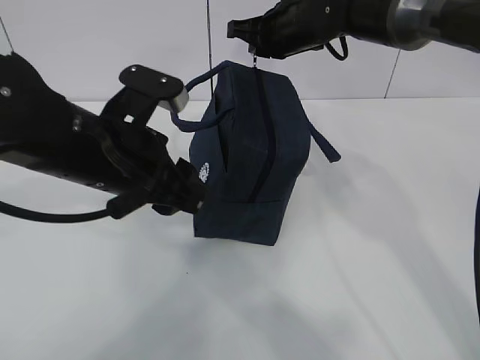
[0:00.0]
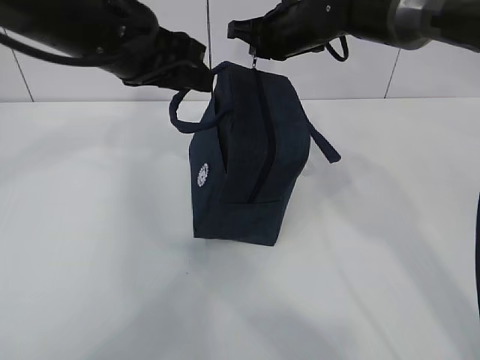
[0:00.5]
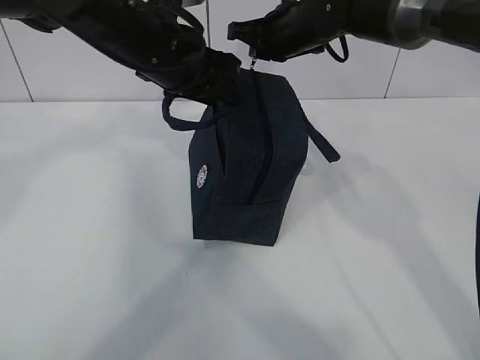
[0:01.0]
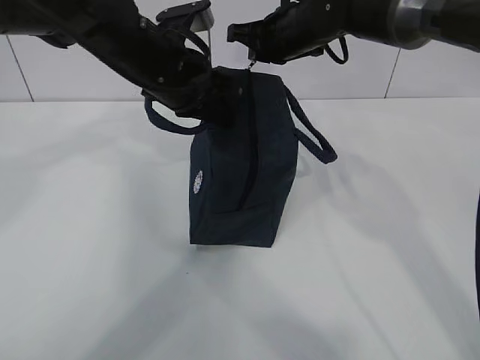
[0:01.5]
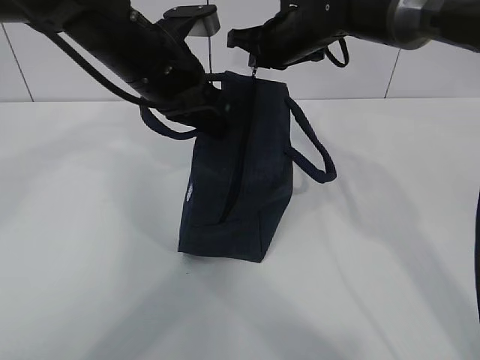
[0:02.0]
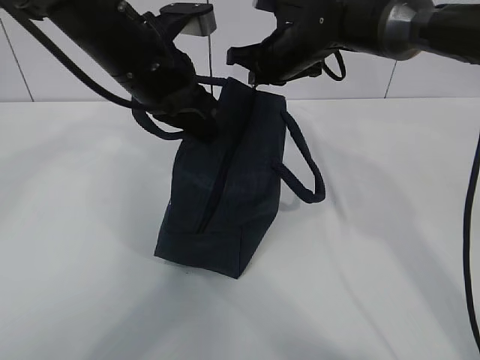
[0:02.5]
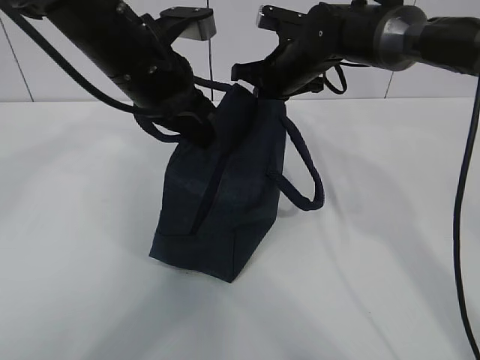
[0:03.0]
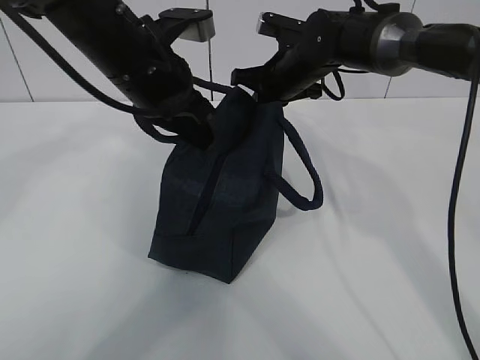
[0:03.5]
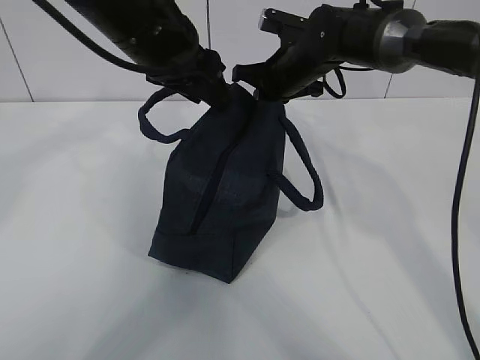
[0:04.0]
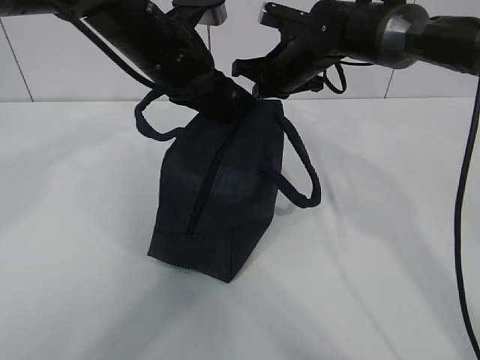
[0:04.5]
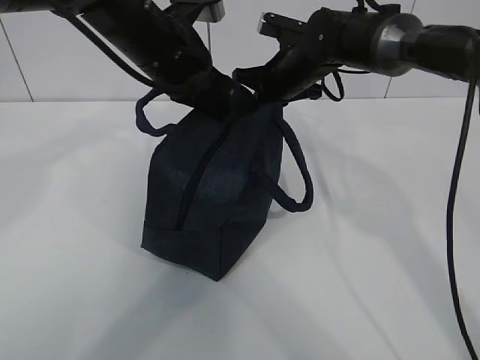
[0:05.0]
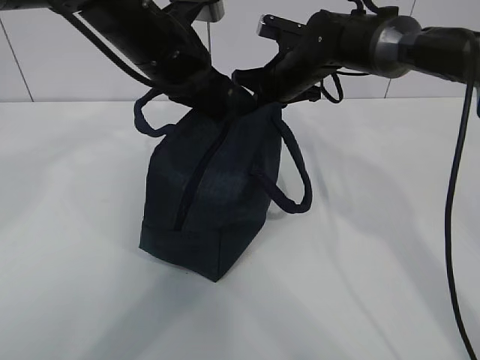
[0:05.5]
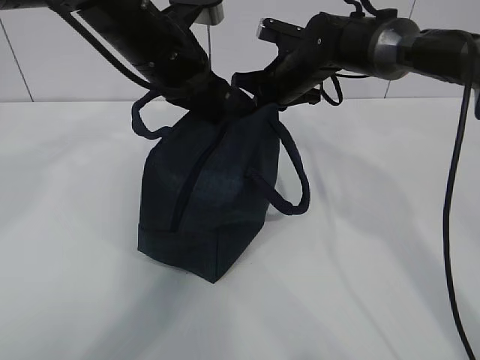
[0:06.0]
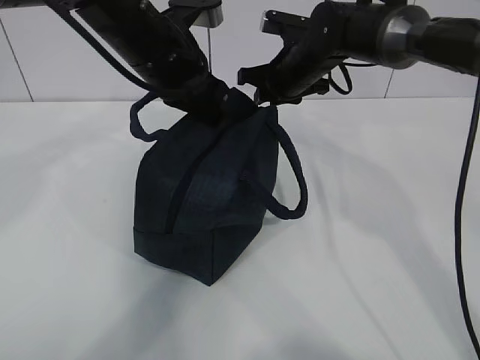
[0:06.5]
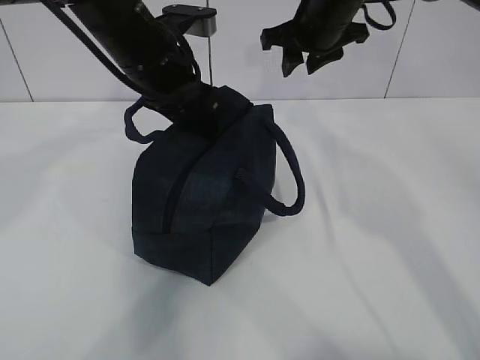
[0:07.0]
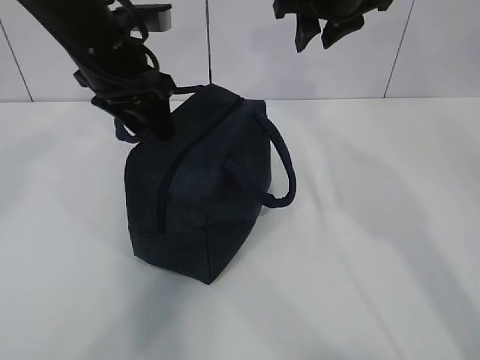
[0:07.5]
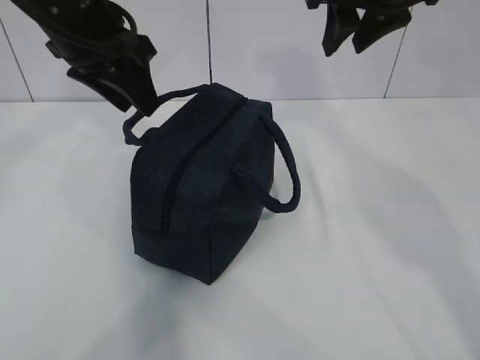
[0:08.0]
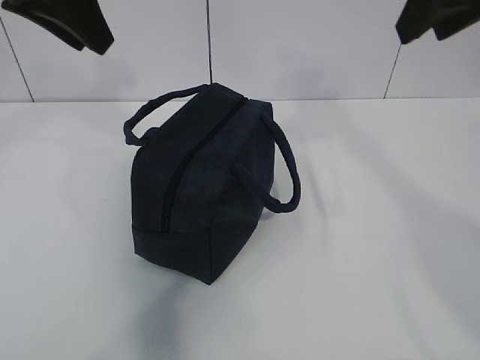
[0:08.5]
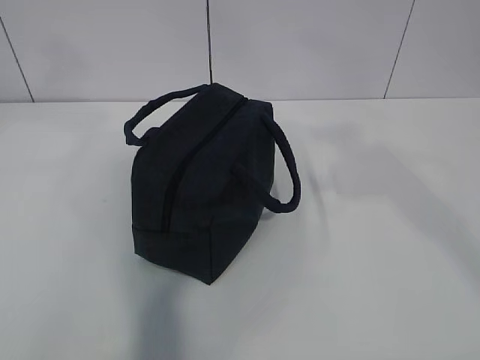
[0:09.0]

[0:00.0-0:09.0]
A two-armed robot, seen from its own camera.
0.0 to 2.0 s: The left gripper travels forward by approximately 10 cm, and closes.
2.0 to 4.5 s: The left gripper opens up.
4.5 to 7.0 s: The right gripper moves upward, some 10 cm, and opens up; the left gripper opens its fingers.
7.0 to 9.0 s: The left gripper travels upward, backward and to the left by approximately 30 cm; the right gripper moves backward, roughly 30 cm.

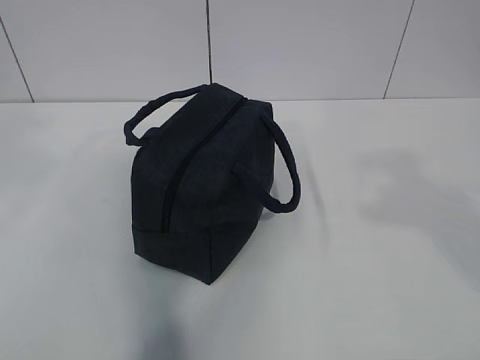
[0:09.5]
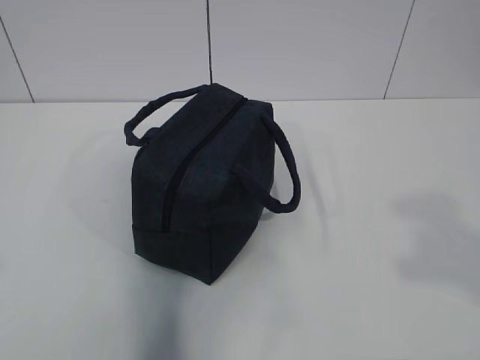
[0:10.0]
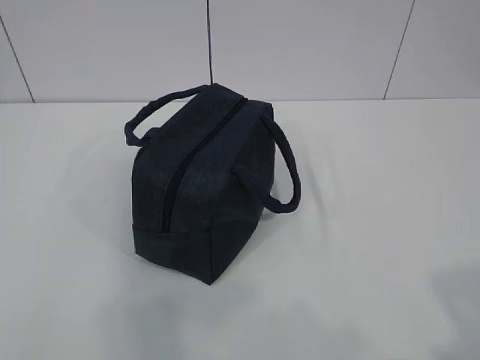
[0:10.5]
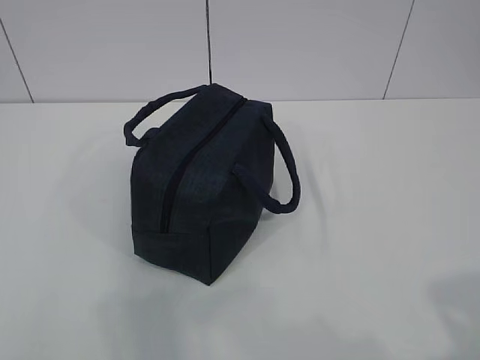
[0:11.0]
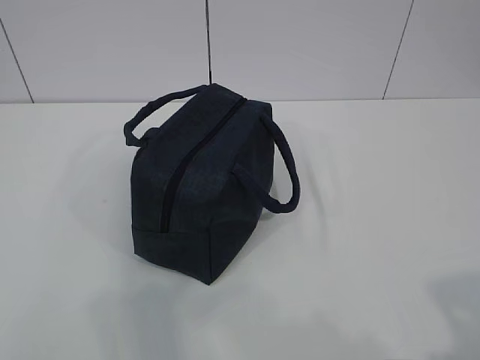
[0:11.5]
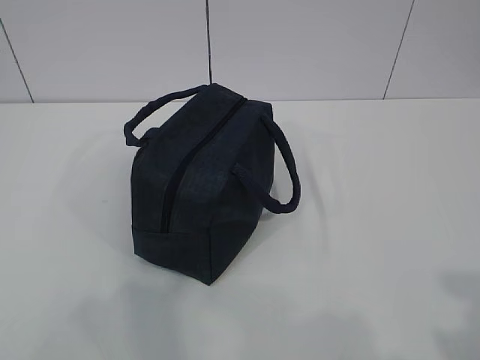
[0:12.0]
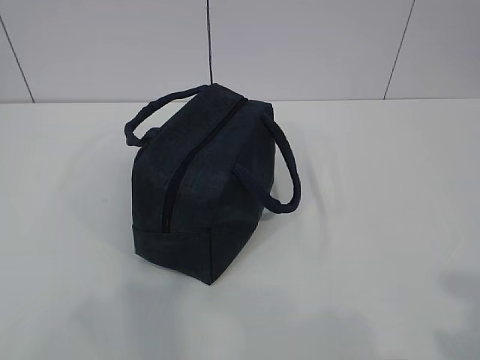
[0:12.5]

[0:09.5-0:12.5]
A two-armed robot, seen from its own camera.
9.5 to 11.0 s: Both grippers move downward and backward, about 20 cm.

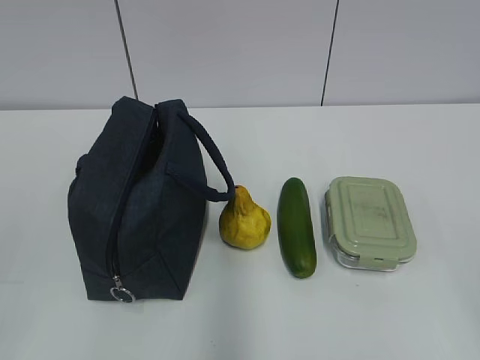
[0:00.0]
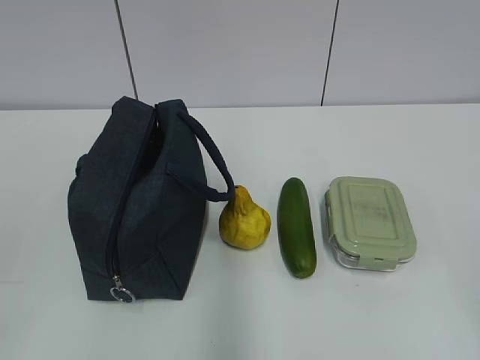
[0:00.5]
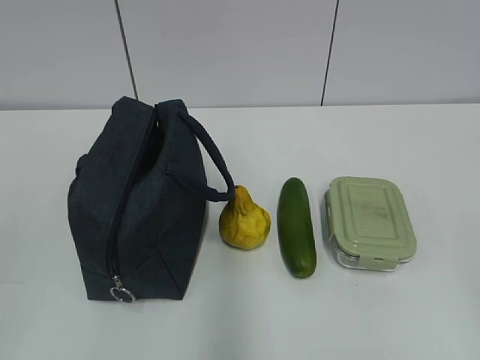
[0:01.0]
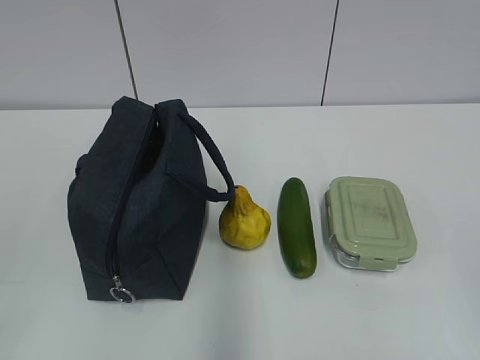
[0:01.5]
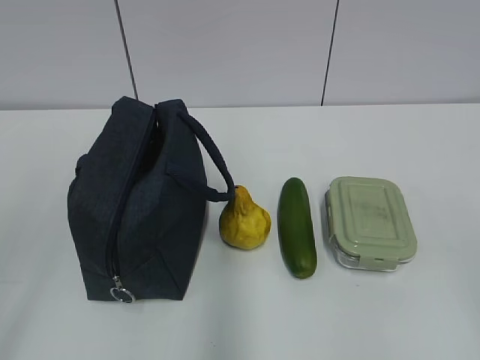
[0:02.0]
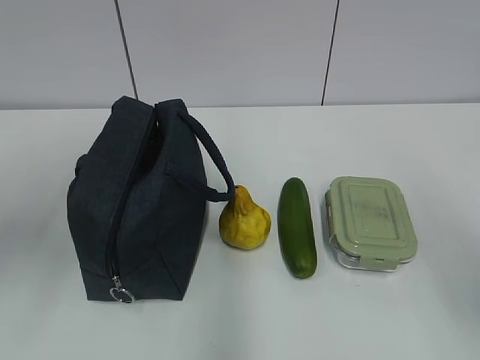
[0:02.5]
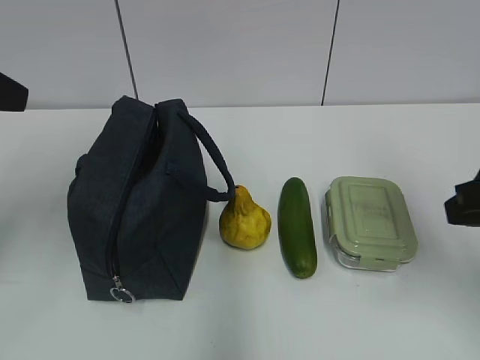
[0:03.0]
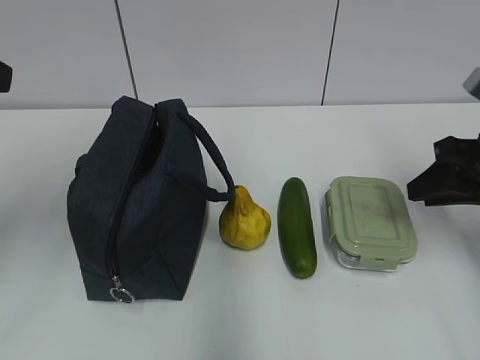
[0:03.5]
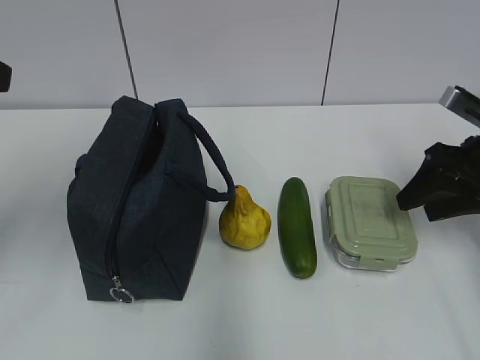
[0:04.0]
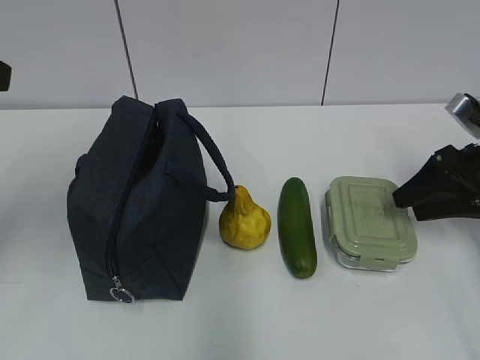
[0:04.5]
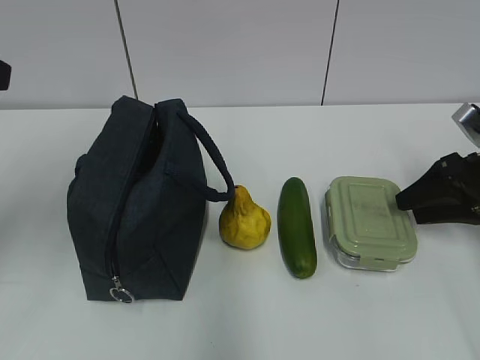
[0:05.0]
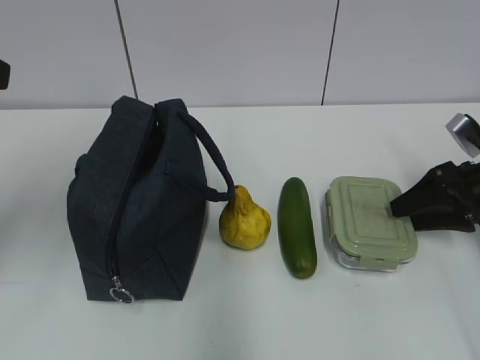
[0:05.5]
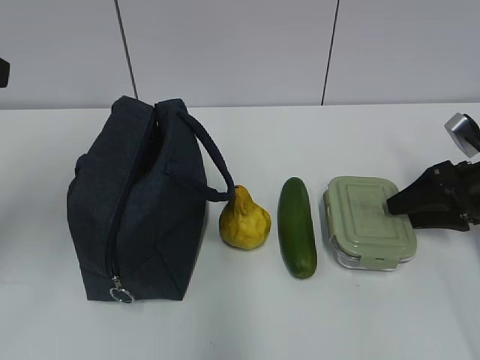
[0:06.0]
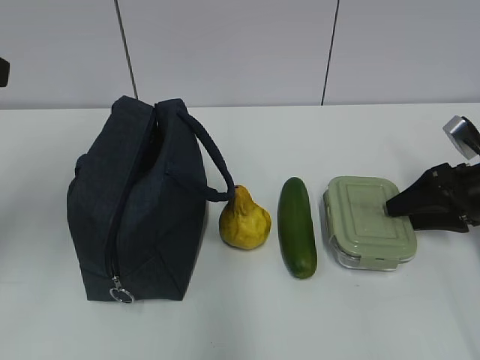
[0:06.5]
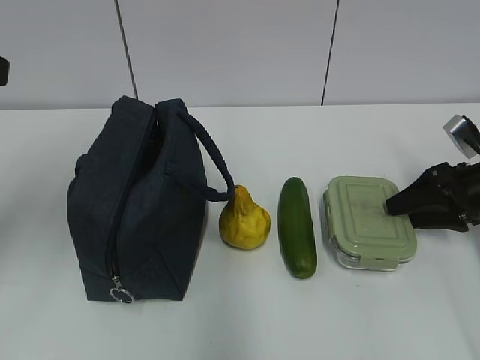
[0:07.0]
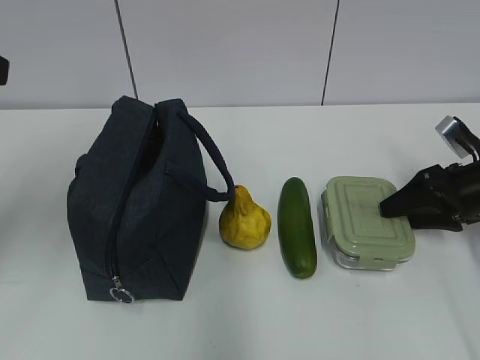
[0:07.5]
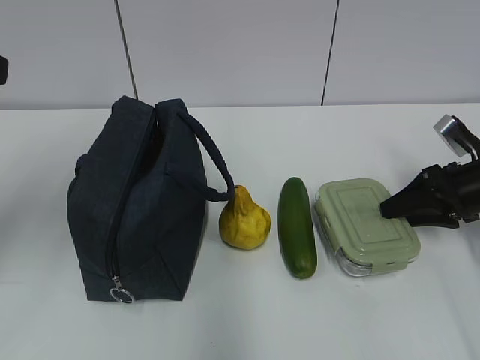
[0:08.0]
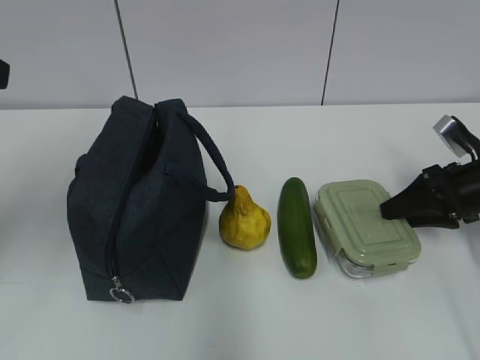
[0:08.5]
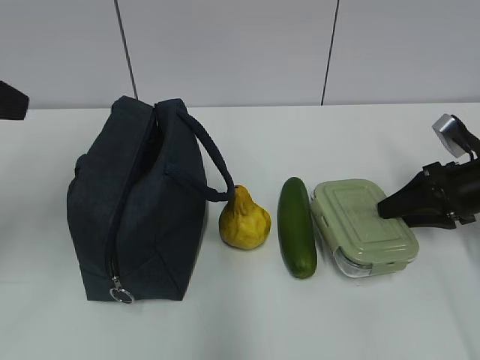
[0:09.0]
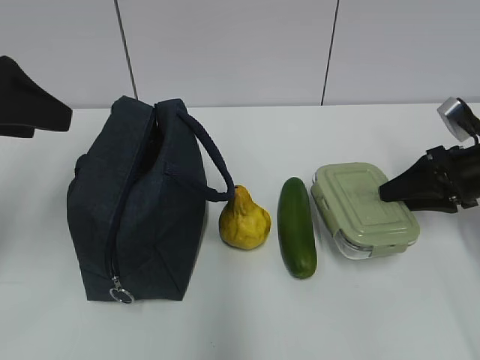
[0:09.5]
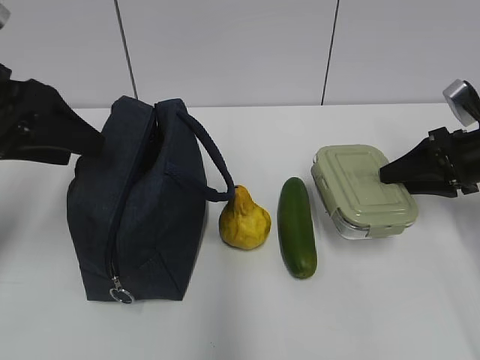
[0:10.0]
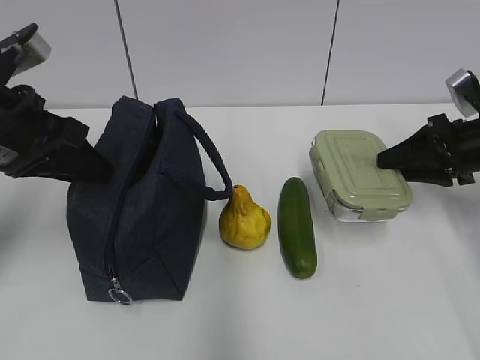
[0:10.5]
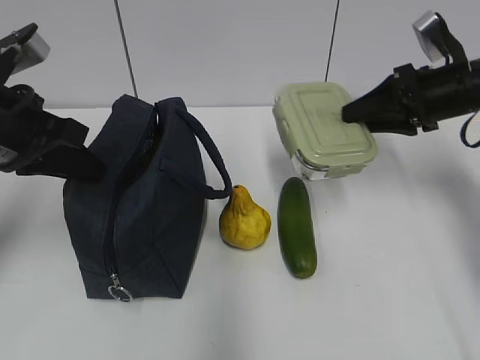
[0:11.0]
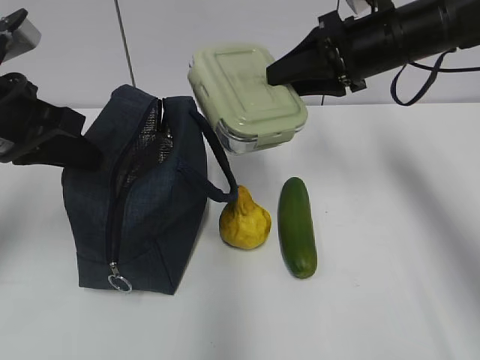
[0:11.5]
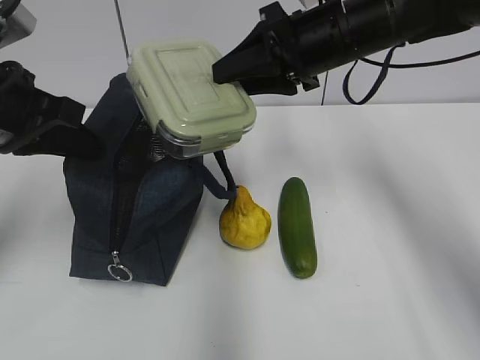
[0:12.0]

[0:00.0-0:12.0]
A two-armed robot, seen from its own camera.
Step, 0.0 to 7.5 s: Grab the lunch box with your right hand.
2.0 to 4.0 s: The left gripper heads forward, covering some 20 cm. Meanwhile the right gripper heads forward, covering some 30 cm.
4.0 to 6.0 s: The right gripper goes roughly 5 cm downward.
6.0 to 8.0 s: Both grippers stay about where they are.
8.0 to 10.0 s: The left gripper is displaced downward by approximately 5 cm, and opens its fingers.
10.0 to 12.0 s: The right gripper shifts about 25 cm to the left and upward, while the left gripper closes up.

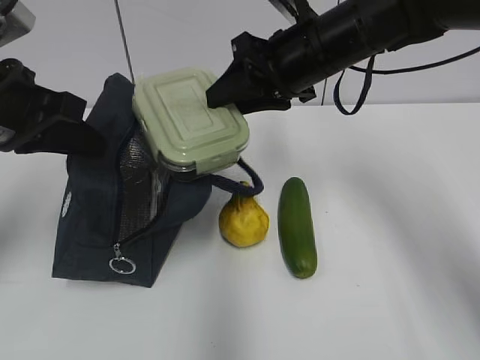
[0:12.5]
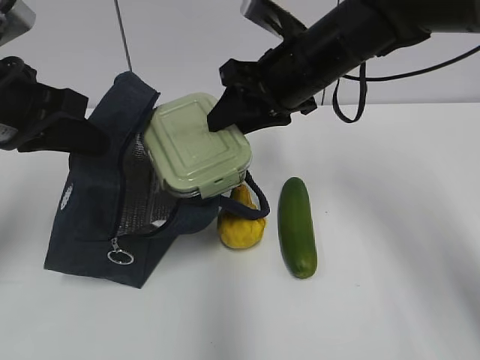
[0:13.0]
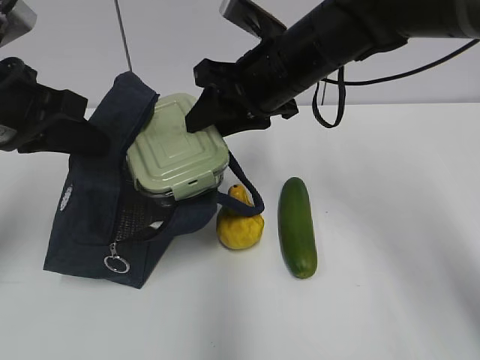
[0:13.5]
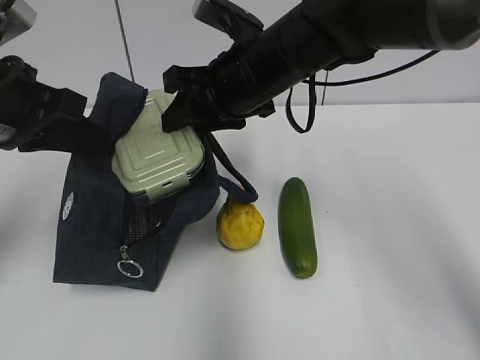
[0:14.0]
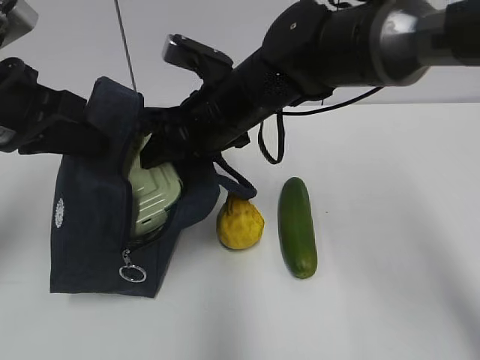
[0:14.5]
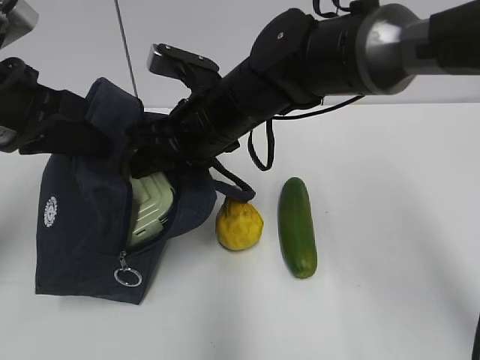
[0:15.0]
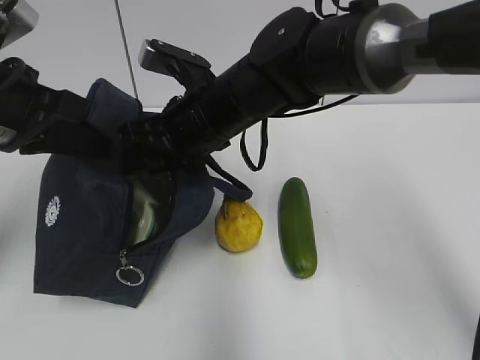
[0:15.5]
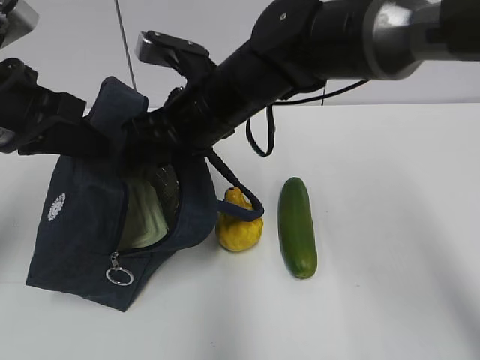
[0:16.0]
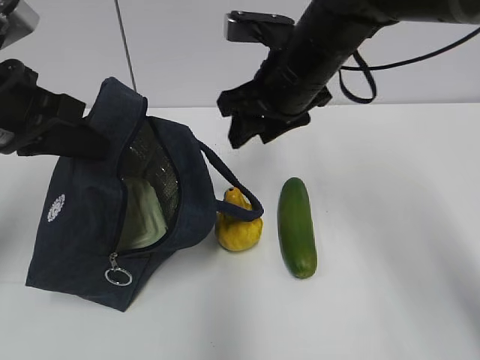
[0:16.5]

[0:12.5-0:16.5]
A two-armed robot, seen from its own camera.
Step, 12.5 to 15.5 s: Place it into the bag with your right hand.
12.5 to 14.5 s: The right gripper heads to the left, covering some 10 cm.
14.5 to 16.5 s: The right gripper heads to the right, covering about 5 cm.
